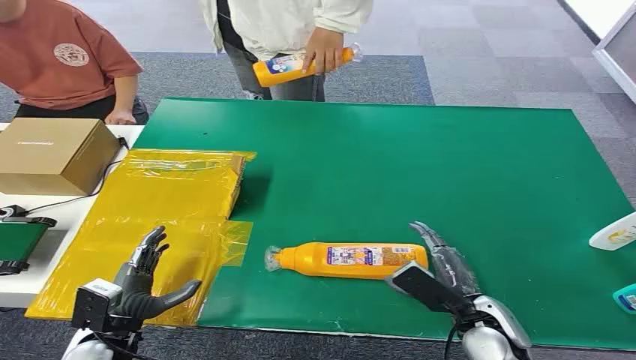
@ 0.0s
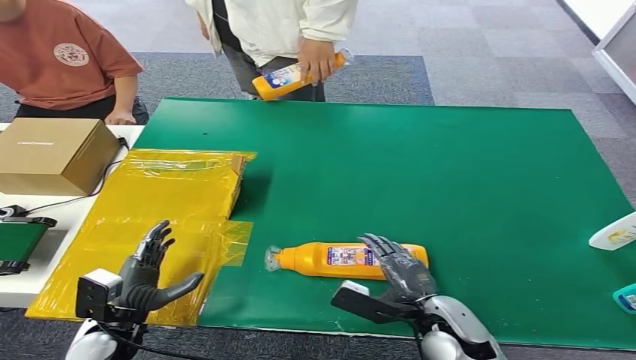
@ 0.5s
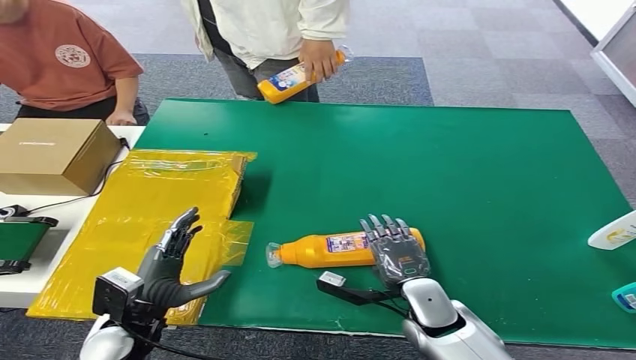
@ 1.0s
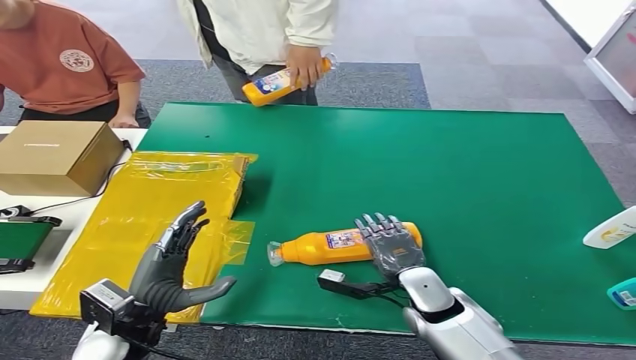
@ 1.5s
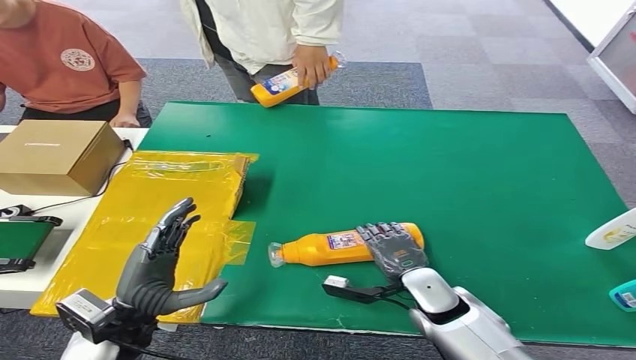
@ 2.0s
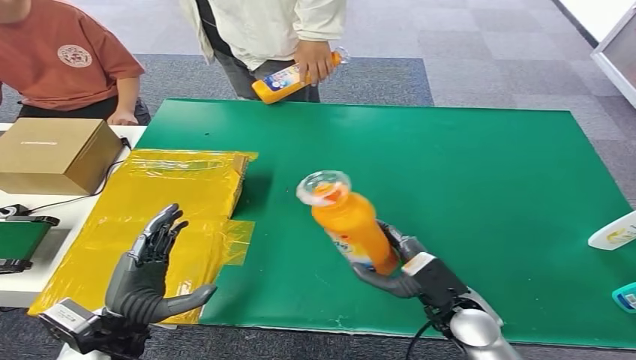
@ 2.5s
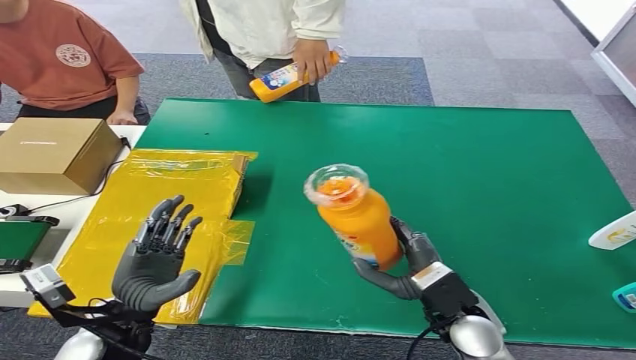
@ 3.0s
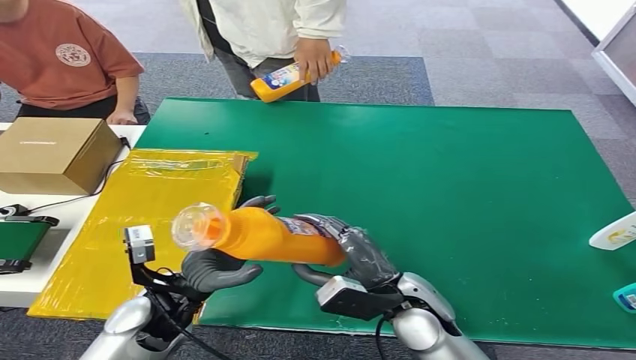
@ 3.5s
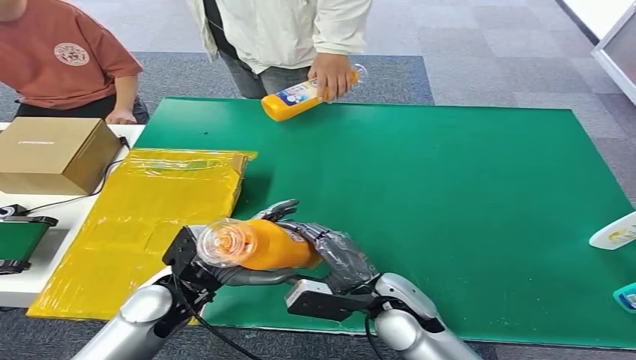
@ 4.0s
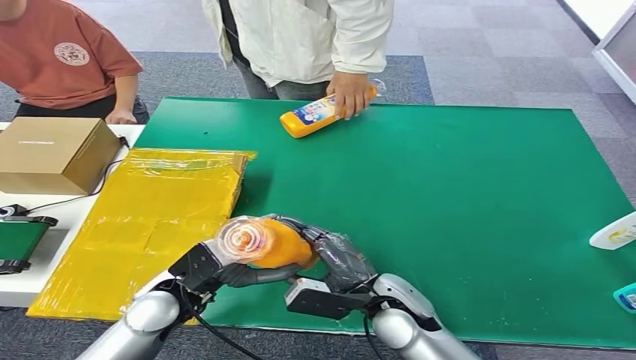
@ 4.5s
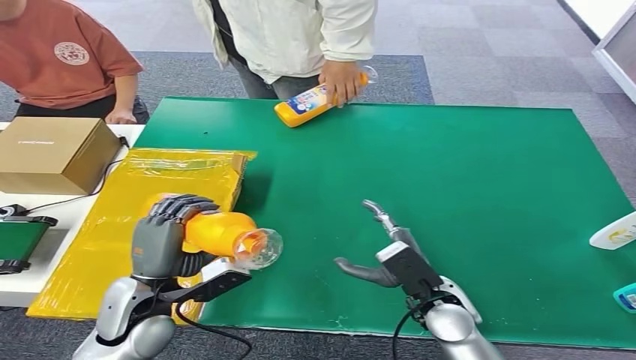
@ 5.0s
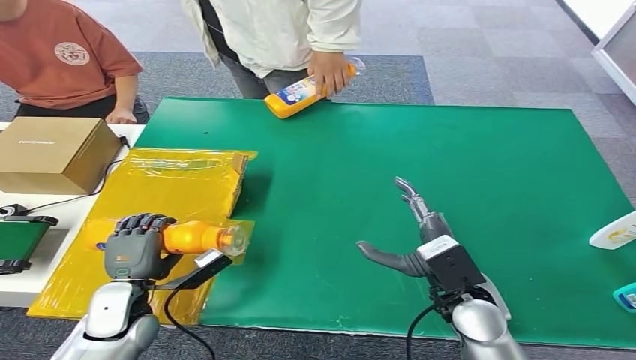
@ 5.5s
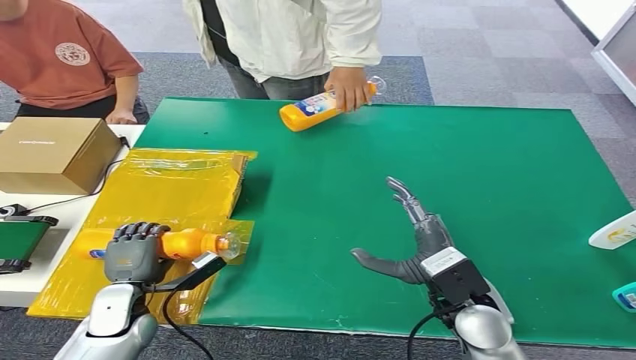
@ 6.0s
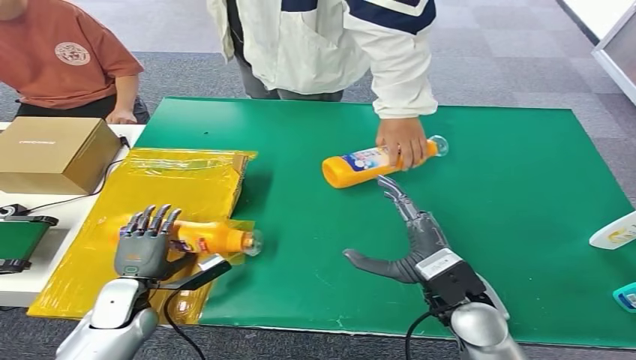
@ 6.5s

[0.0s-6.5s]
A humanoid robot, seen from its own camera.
Step, 0.0s to 2.0s: Pick up the bottle from the table.
Step, 2.5s to 6.5s: Turn the bottle to the front side.
